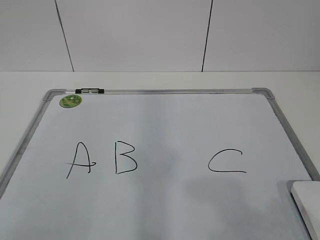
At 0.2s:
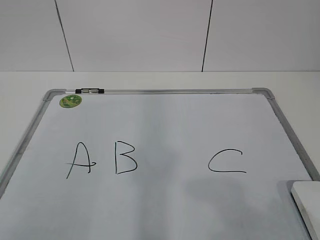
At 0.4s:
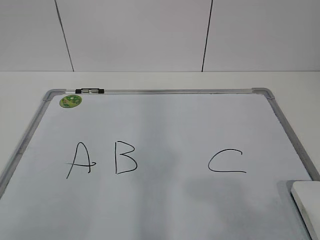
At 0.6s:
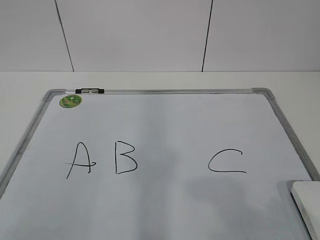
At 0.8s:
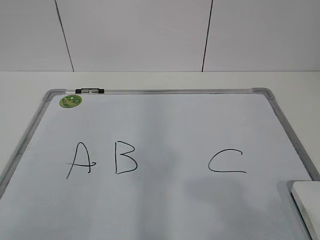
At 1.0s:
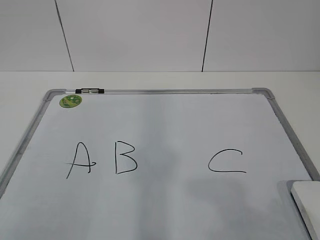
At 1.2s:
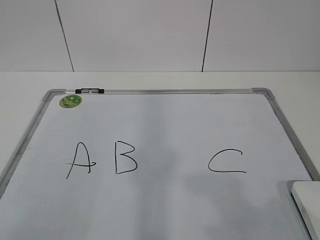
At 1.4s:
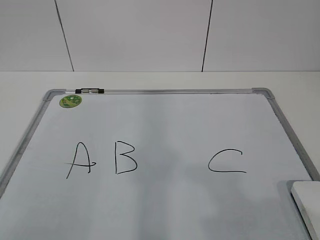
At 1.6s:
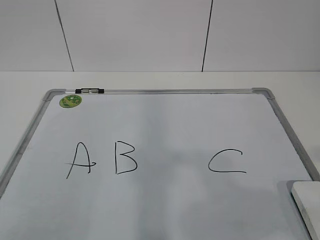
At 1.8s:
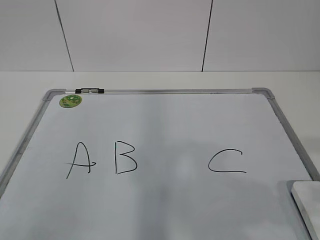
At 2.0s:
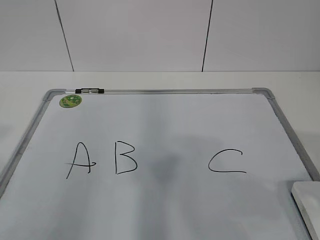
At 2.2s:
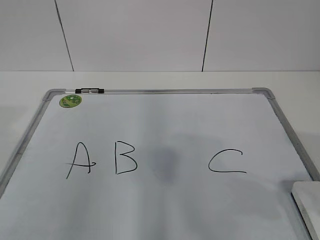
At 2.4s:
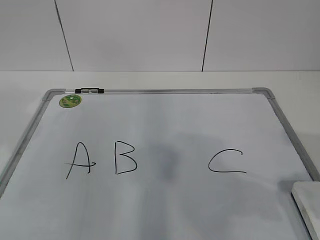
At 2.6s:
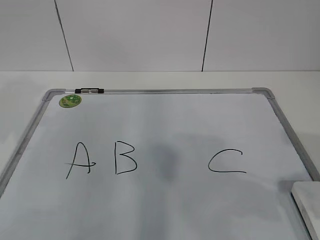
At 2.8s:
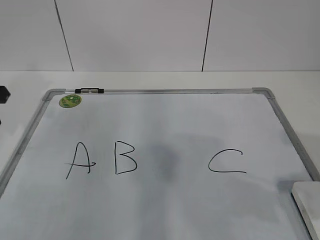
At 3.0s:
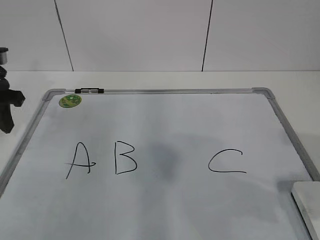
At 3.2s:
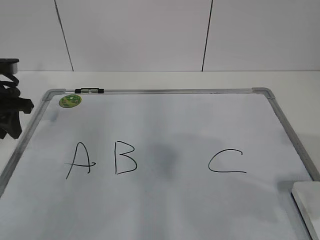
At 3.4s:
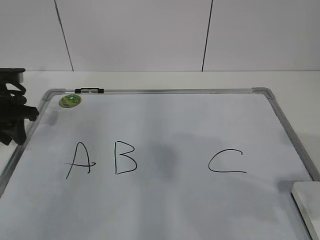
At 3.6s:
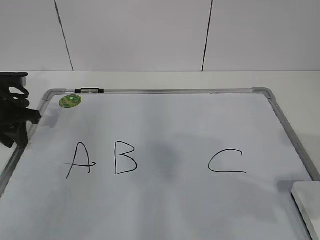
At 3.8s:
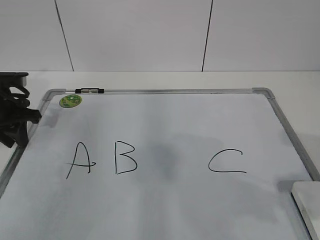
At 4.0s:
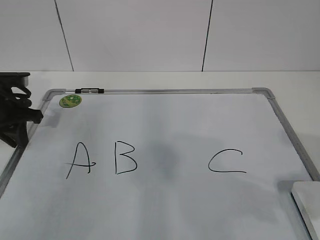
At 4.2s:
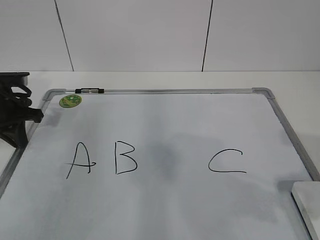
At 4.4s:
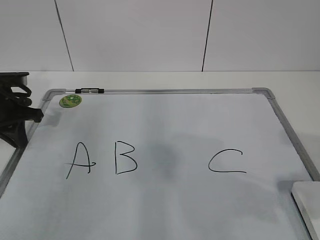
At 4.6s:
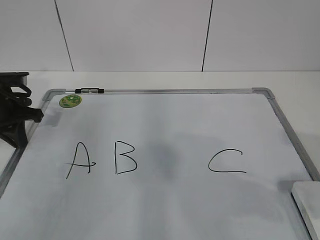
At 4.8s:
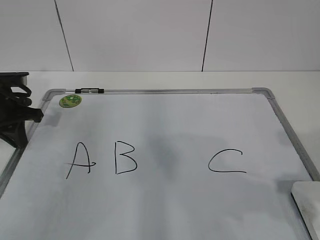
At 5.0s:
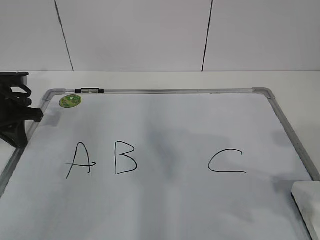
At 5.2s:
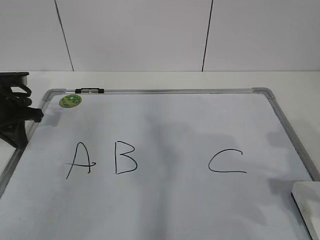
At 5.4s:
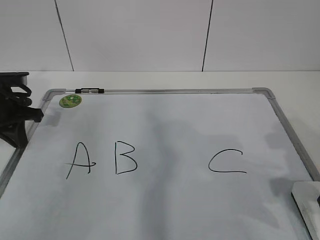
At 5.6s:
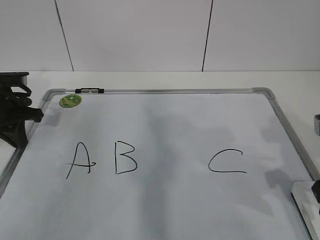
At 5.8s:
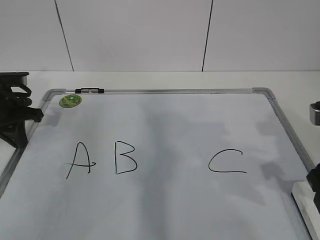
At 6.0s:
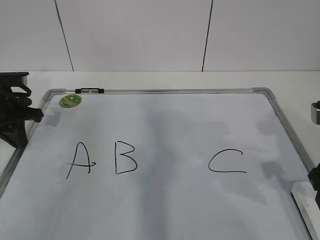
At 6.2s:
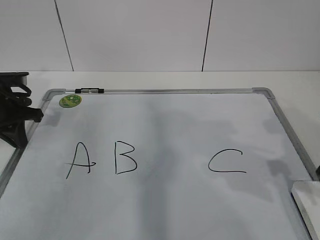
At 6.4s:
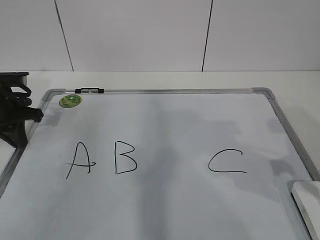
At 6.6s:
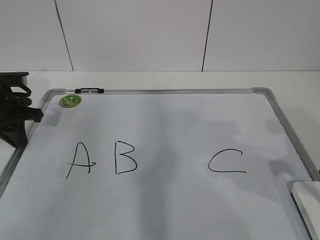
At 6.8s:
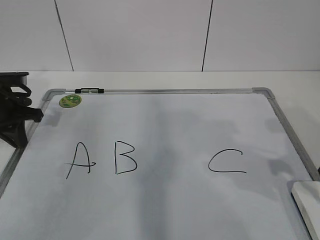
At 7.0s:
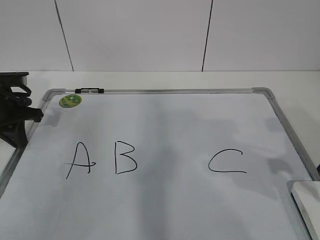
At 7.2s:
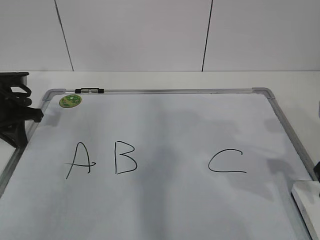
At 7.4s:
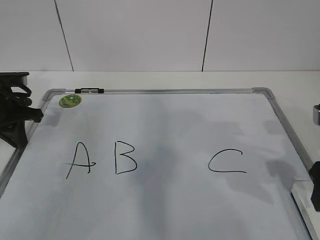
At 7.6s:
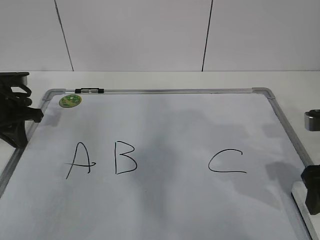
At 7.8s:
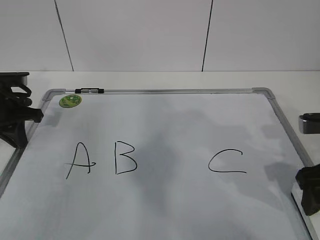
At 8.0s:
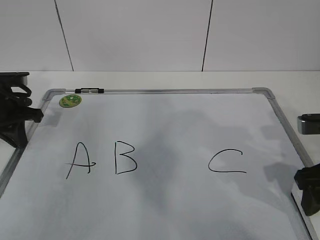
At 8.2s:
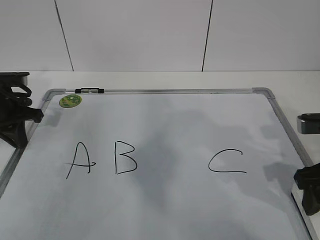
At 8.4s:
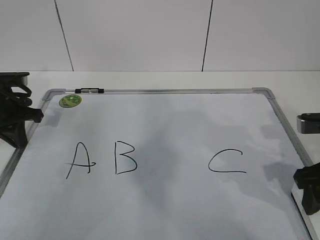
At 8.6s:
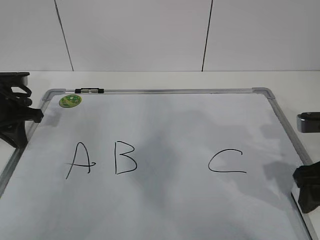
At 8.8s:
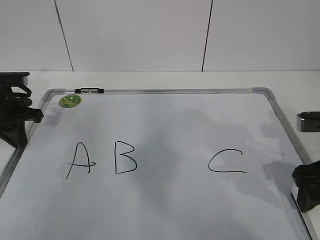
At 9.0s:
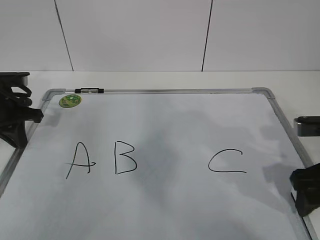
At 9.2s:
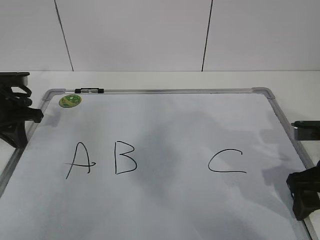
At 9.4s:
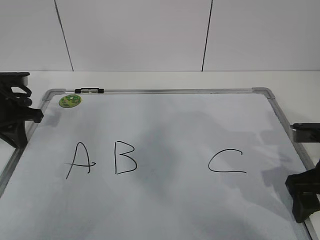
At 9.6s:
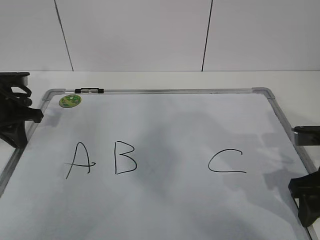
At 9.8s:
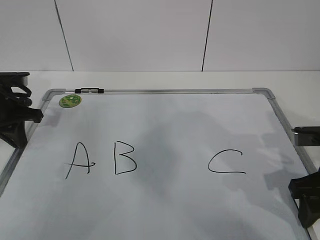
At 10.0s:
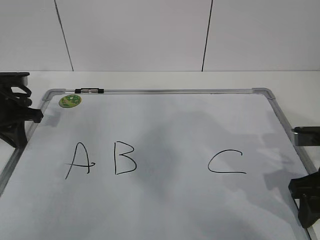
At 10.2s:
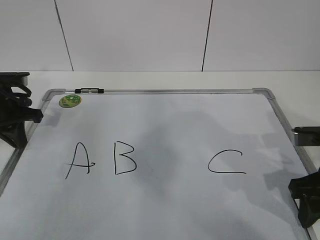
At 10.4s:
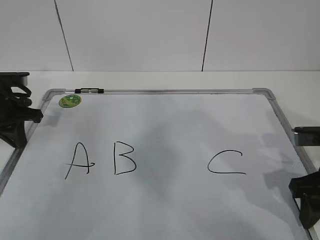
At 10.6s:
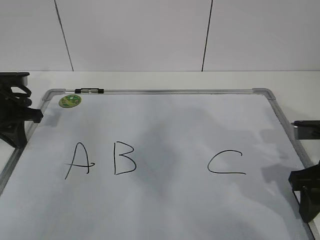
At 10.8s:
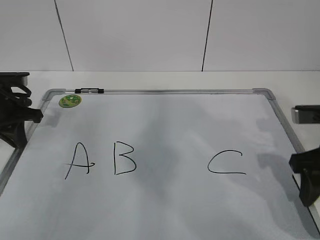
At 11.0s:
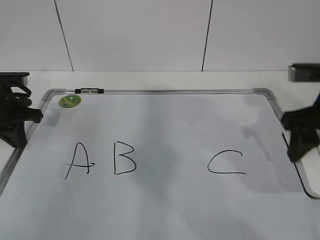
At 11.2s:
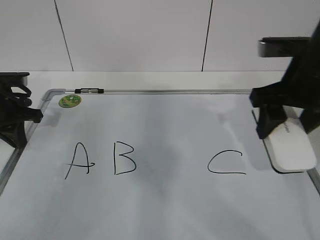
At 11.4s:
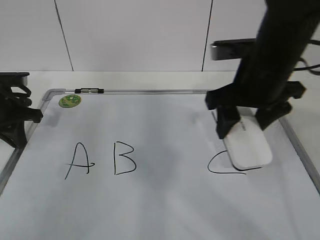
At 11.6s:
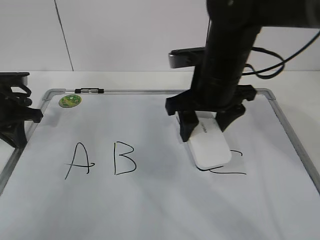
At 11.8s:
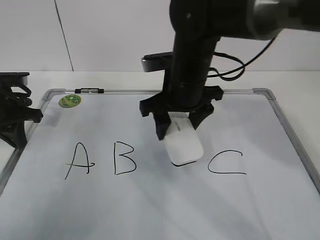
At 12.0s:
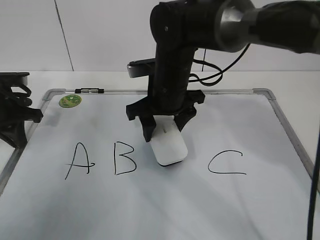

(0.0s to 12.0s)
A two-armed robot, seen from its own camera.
Task of the whole recording: pick up the eraser on the blackboard and erase the letter "B".
Step, 0.0s - 3.4s: Hold the drawing board steady with your left hand.
Step, 3.6s - 8.4s: Grab the eraser with your right hand.
1.6s - 3.0s: The right gripper is displaced forward by about 5 cm, while the left gripper is displaced forward by approximately 35 cm.
3.0s - 4.4s: The left gripper heads downward, covering some 5 cm, and closes.
4.4s - 6.0s: The right gripper moves forward, some 10 cm.
6.0s - 7.6s: The right gripper closes, then reopens.
7.6s - 10.4s: The grippers move only a little.
10.4s - 12.0s: The right gripper is displaced to the left and forward by roughly 25 cm.

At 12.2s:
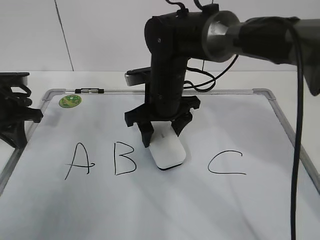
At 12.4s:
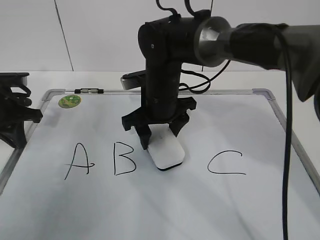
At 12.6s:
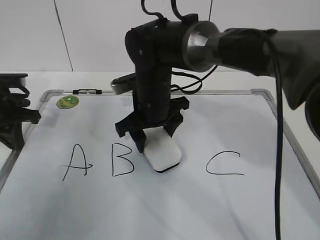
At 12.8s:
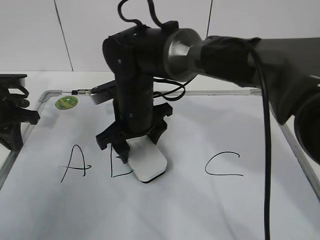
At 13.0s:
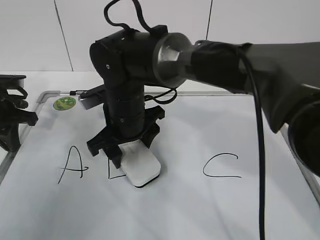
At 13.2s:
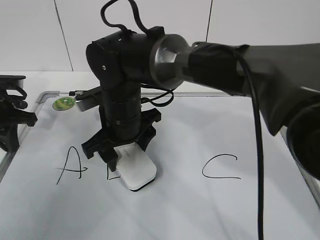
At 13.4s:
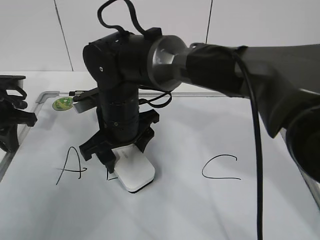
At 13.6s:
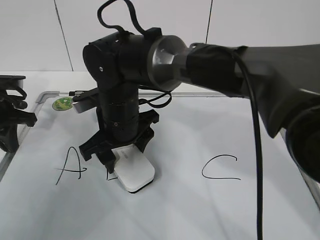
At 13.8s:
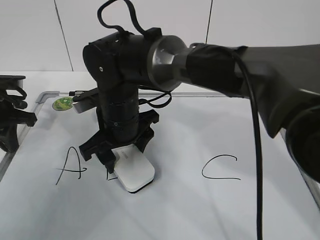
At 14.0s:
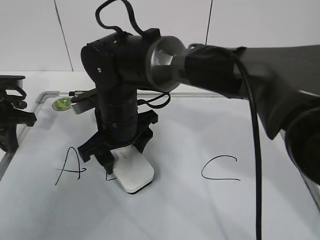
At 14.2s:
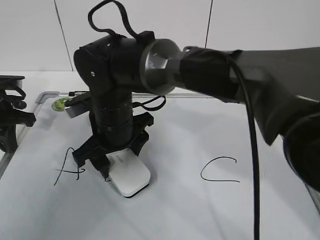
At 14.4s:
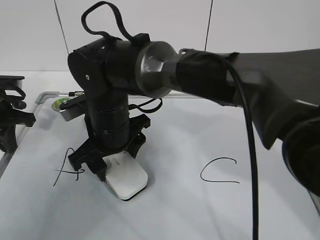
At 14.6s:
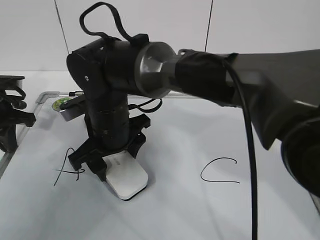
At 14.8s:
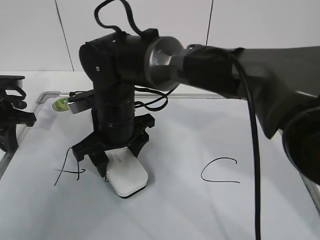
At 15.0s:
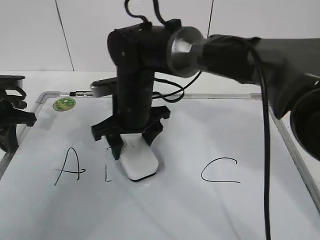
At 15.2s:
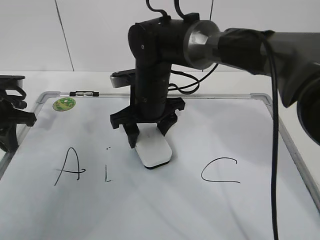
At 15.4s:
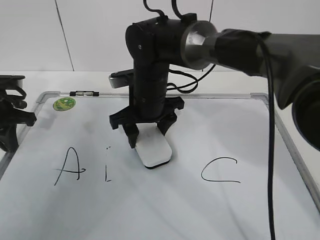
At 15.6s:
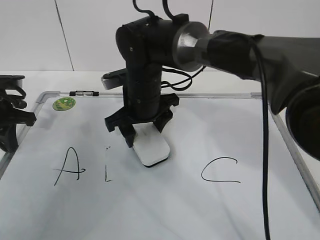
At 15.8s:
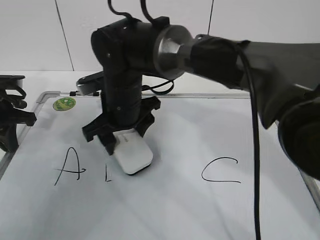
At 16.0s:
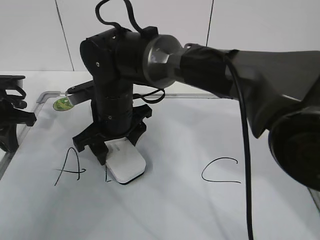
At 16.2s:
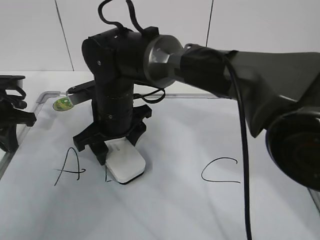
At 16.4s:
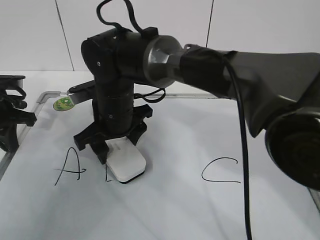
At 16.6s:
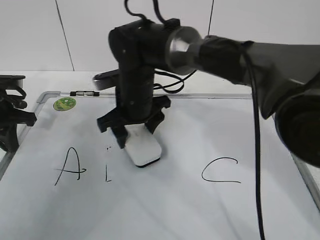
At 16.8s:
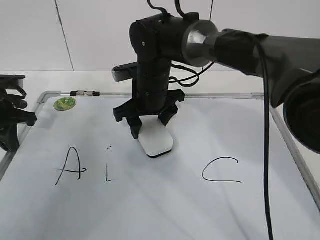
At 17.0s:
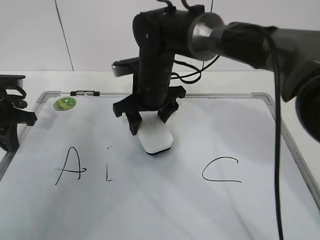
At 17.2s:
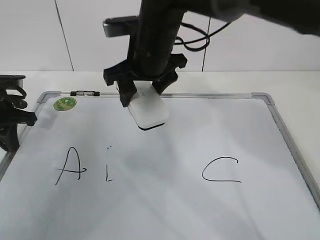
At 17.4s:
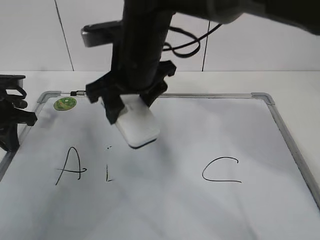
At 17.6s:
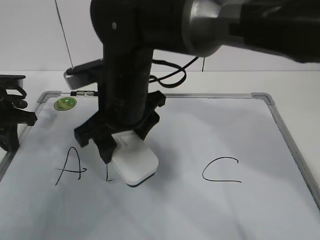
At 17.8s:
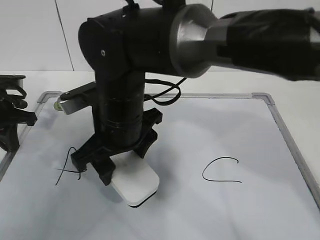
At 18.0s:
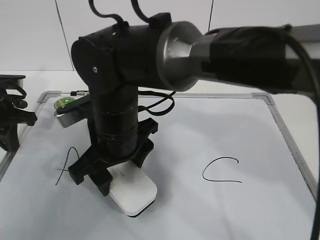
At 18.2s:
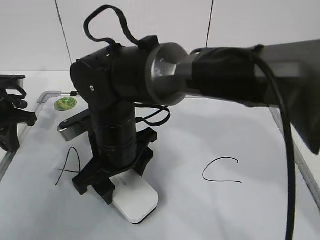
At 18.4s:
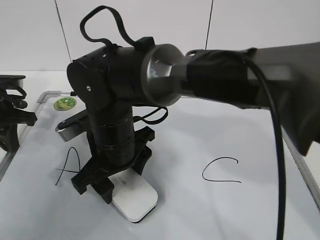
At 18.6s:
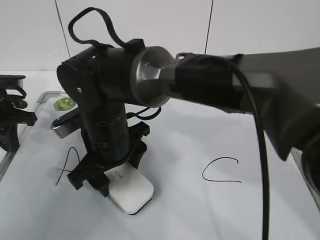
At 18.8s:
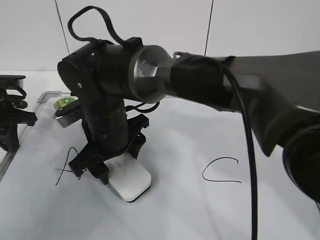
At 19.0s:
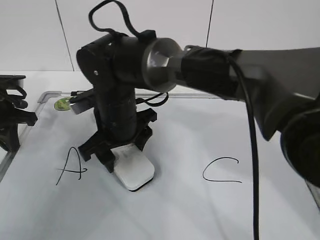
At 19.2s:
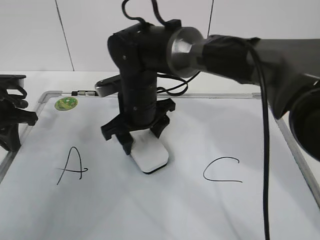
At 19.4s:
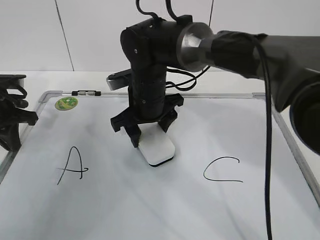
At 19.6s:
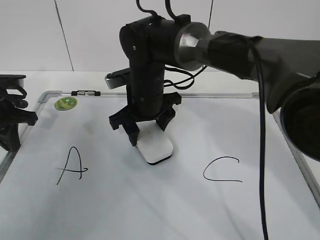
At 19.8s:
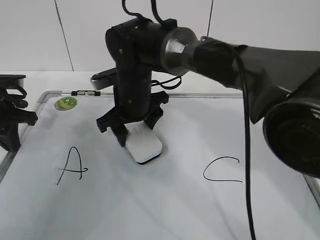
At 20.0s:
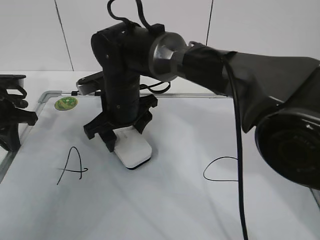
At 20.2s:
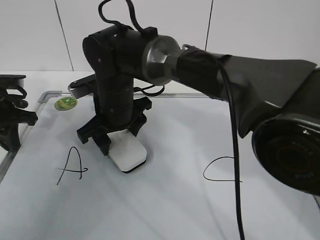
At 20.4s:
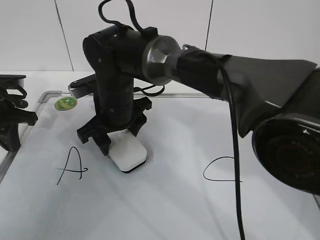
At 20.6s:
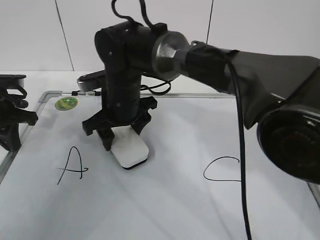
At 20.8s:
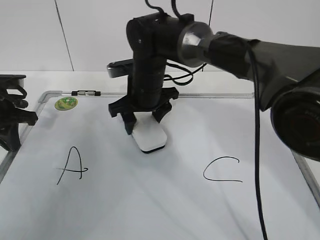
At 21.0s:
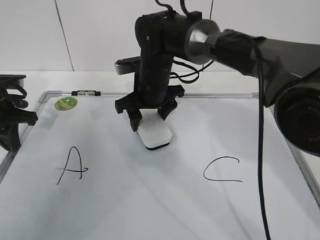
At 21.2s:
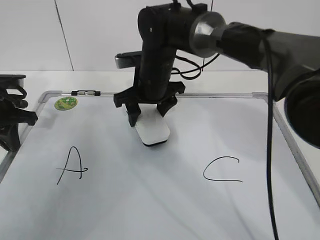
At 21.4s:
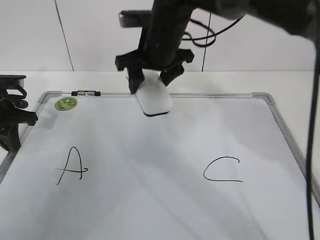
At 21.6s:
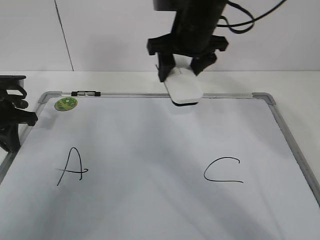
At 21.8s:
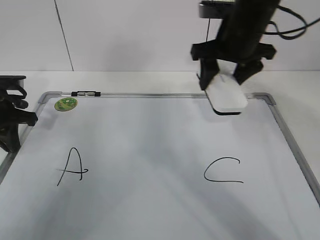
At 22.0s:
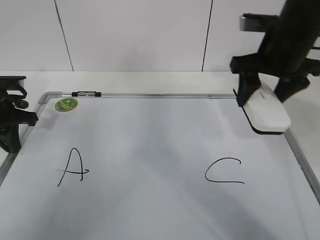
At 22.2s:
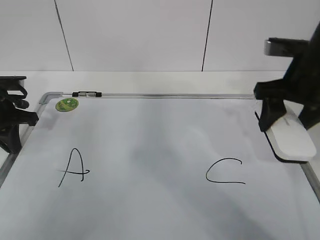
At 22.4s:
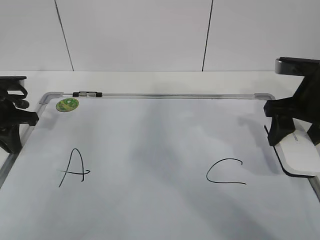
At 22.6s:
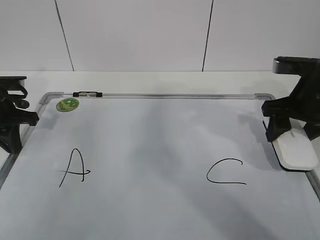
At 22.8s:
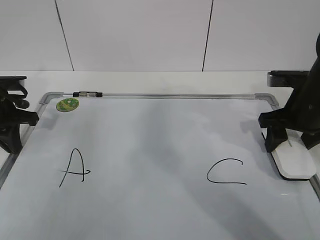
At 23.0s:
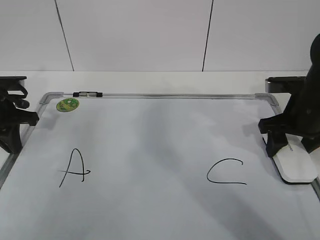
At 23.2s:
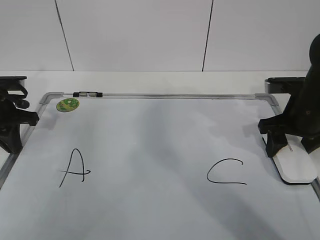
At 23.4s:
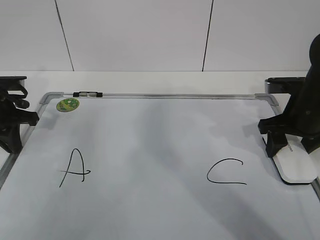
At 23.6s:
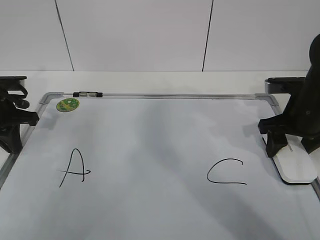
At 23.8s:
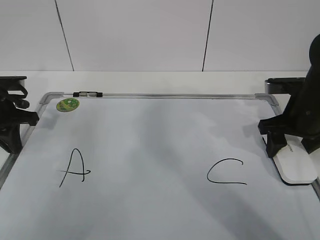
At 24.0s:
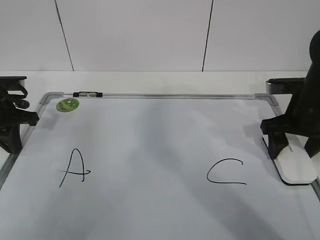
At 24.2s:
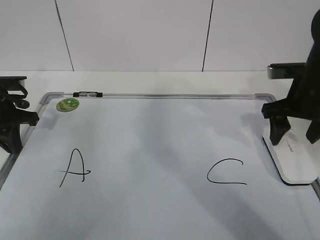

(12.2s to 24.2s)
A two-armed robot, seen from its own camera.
Task of the whole recording: pick up the eraser on the blackboard and erase the letter "B".
Step, 12.2s - 17.4s: Erase the letter B with your right hand.
Step, 17.6s - 19.6s: Put down the eraser with your right hand.
12.2s - 13.8s: The right gripper travels to the left and backward by some 10 cm.
13.8s - 15.2s: The right gripper moves to the right and forward, some 10 cm.
16.6s - 18.2s: The right gripper shifts about 10 cm backward.
18.2s - 19.8s: The right gripper heads forward, covering about 10 cm.
21.2s - 22.6s: The right gripper shifts approximately 25 cm to the right.
22.6s - 24.2s: The grippers stay close to where they were, moving slightly.
